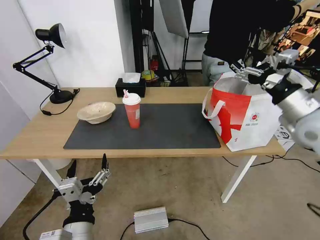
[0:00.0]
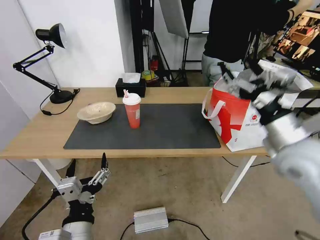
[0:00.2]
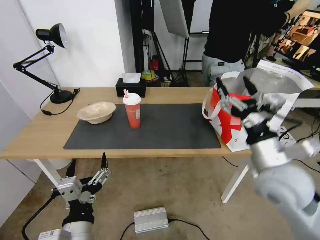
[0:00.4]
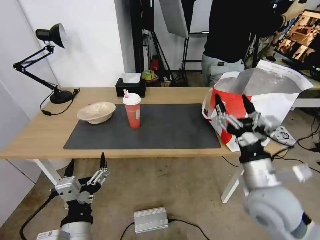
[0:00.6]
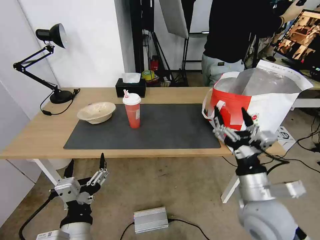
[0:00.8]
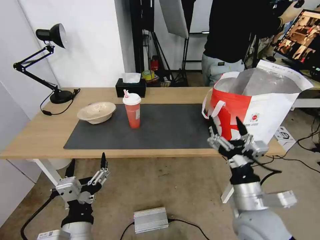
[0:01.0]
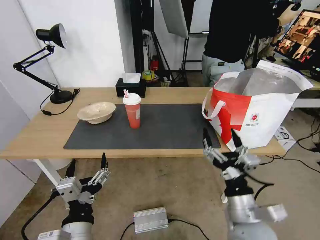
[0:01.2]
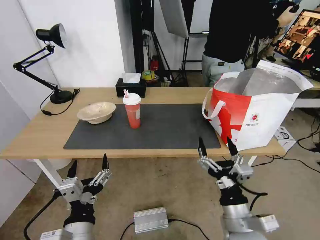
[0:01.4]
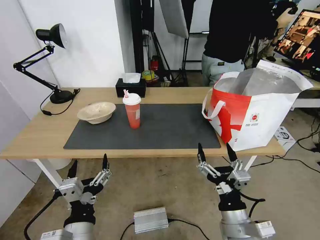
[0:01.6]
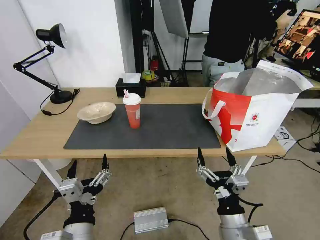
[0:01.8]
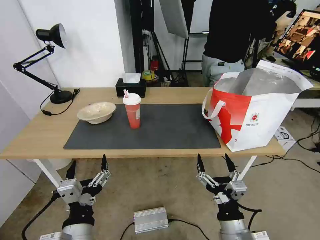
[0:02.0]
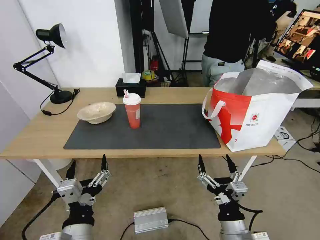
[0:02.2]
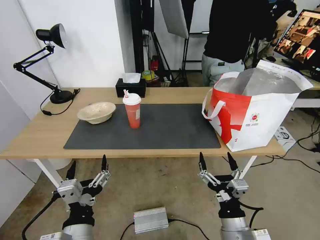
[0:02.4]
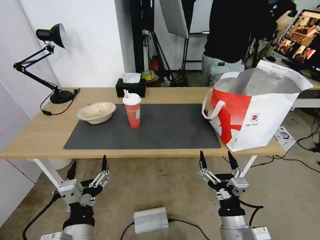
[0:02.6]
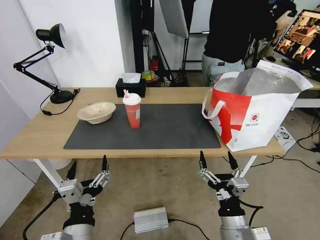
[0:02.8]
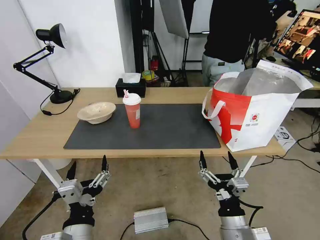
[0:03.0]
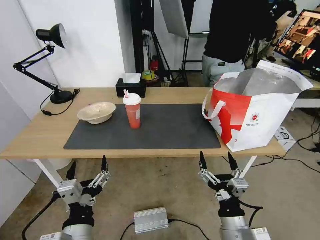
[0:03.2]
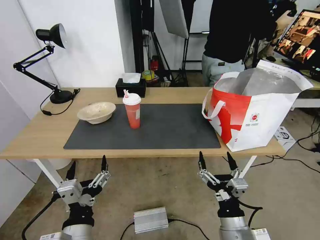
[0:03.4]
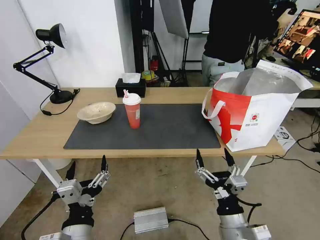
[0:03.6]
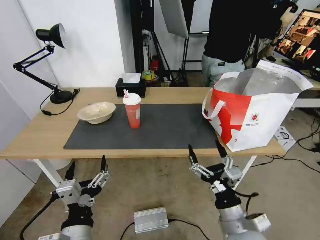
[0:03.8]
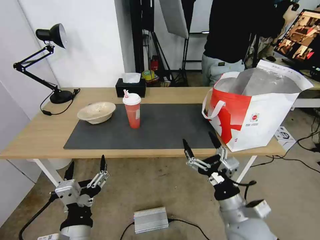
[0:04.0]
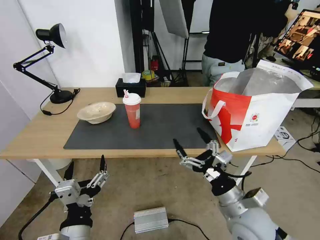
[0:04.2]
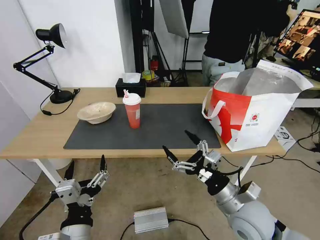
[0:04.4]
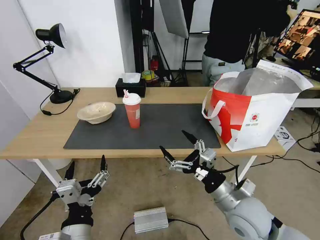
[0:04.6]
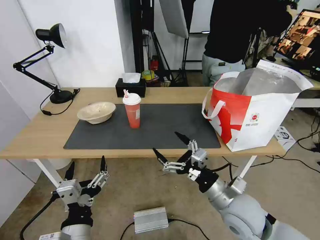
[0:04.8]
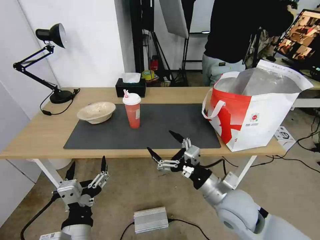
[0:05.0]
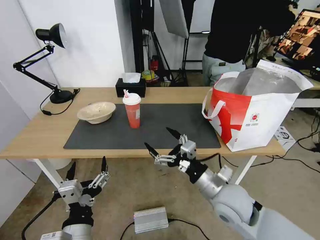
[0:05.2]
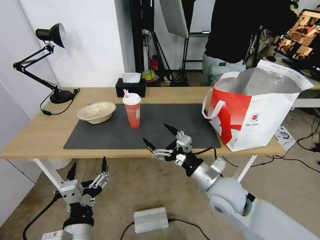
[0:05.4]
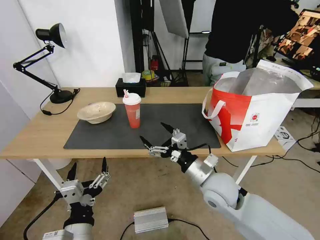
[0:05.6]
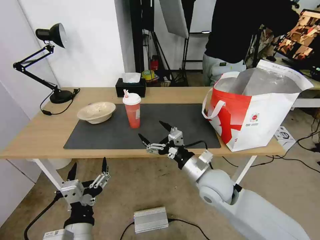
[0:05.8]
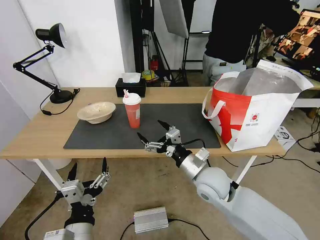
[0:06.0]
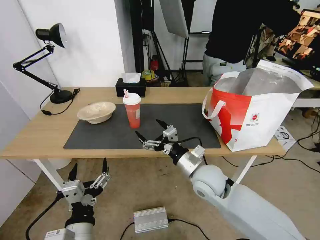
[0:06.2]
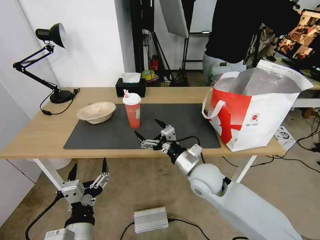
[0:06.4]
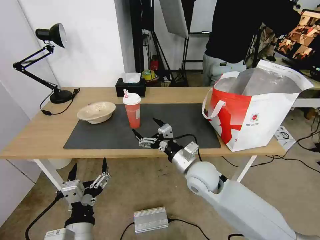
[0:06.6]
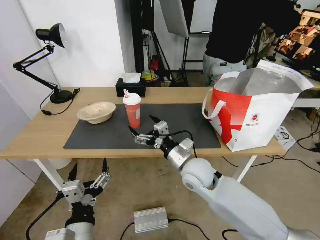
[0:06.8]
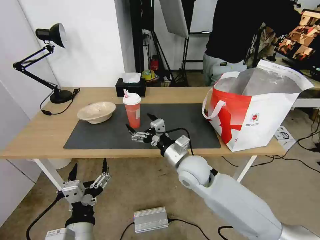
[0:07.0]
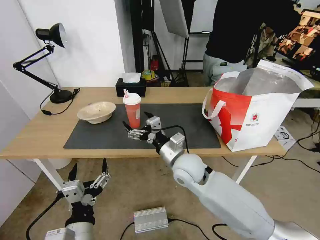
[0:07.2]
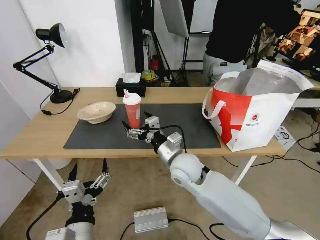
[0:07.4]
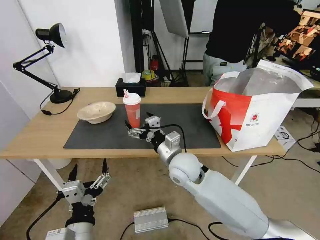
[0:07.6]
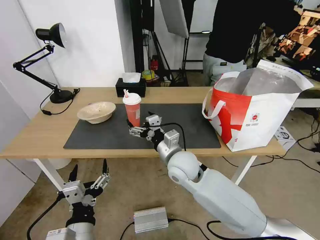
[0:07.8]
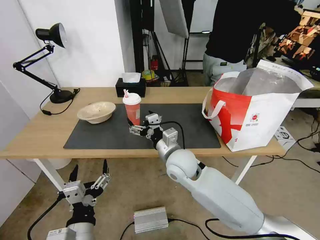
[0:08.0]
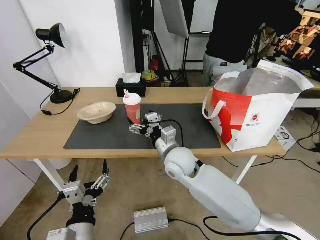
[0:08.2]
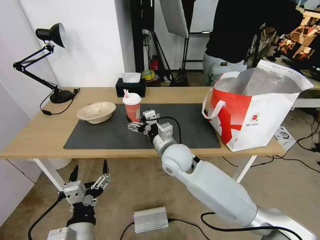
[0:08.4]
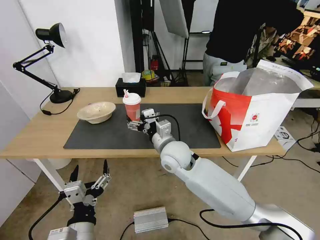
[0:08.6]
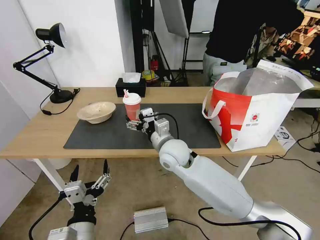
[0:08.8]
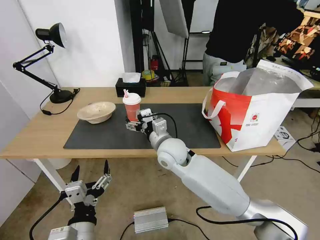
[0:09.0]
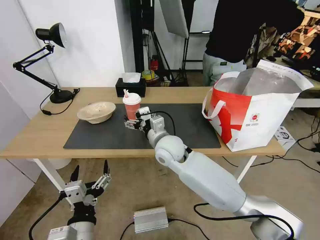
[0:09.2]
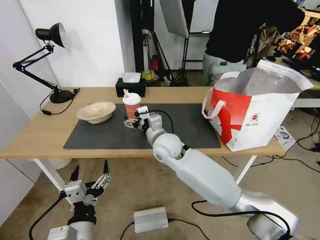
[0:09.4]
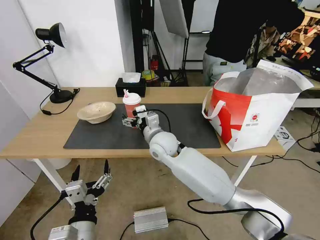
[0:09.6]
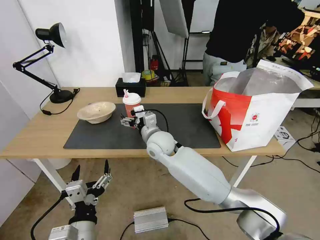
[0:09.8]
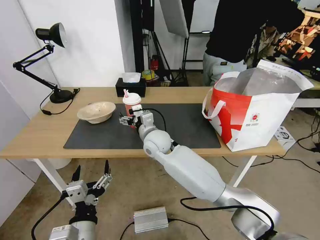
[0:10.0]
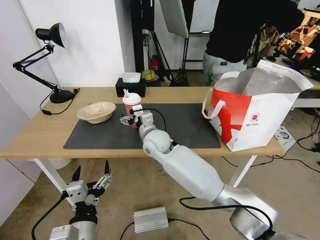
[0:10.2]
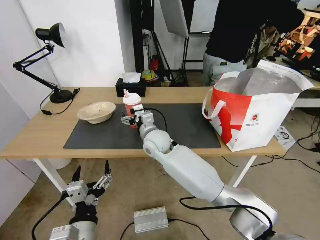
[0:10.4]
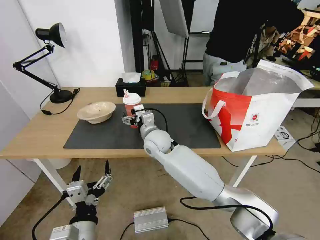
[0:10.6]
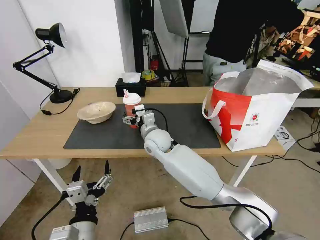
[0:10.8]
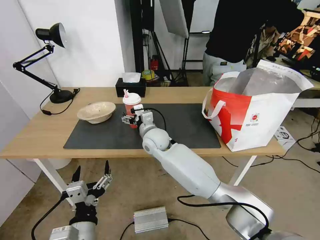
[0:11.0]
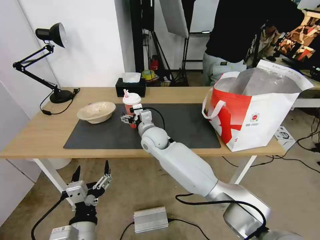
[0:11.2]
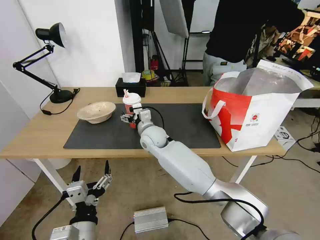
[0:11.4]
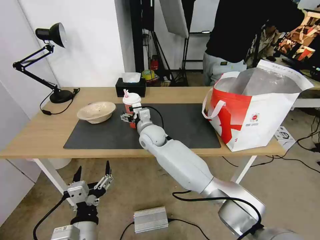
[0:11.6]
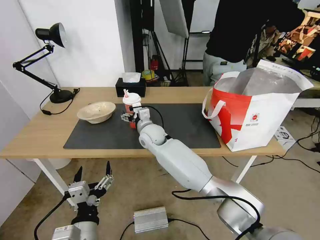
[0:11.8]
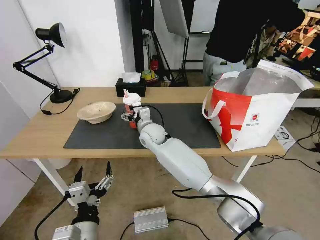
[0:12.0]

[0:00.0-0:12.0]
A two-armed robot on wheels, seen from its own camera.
Task of the whole recording: Pick up the trash from the table and place it into the takeout bag.
0:00.0 to 0:01.6: The right gripper is displaced backward, downward and to the left by roughly 35 cm.
0:01.6 to 0:03.0: The grippers stay close to where they were, moving slightly.
0:03.0 to 0:04.4: The right gripper goes some 10 cm forward and upward.
0:04.4 to 0:06.0: The right gripper is displaced forward and to the left by roughly 10 cm.
0:06.0 to 0:07.6: The right gripper is displaced to the left by about 10 cm.
0:07.6 to 0:09.0: The right gripper ends up some 5 cm from where it was.
0:09.0 to 0:10.4: The right gripper shifts some 5 cm forward.
0:10.4 to 0:12.0: The right gripper changes place by roughly 5 cm.

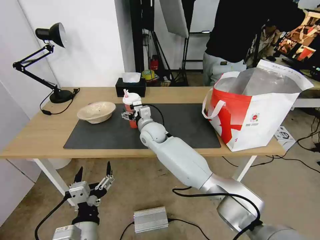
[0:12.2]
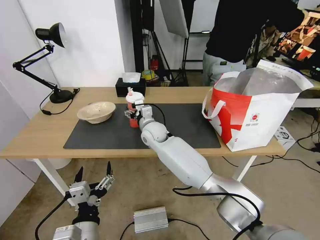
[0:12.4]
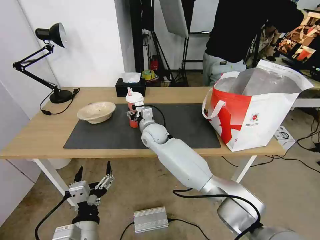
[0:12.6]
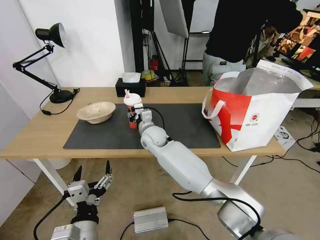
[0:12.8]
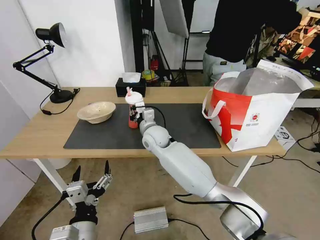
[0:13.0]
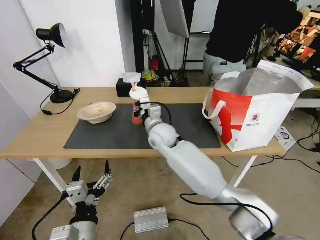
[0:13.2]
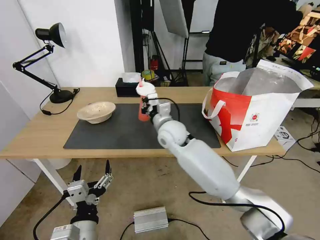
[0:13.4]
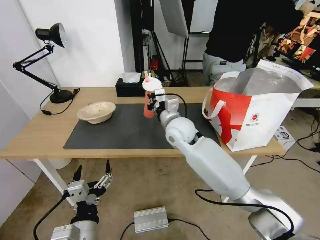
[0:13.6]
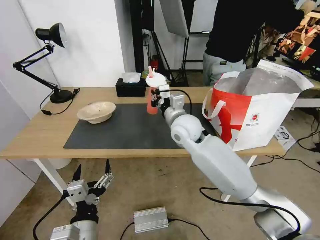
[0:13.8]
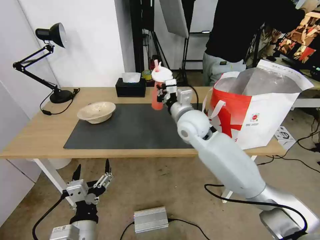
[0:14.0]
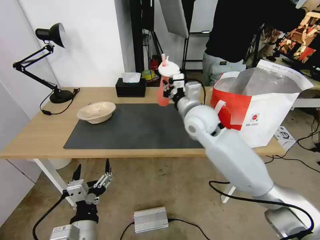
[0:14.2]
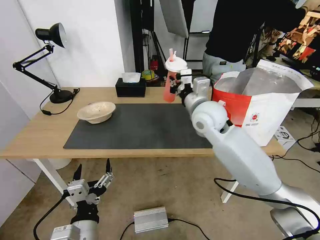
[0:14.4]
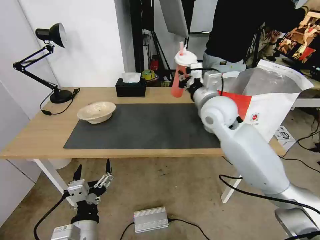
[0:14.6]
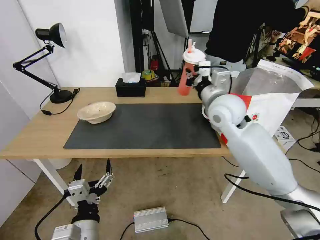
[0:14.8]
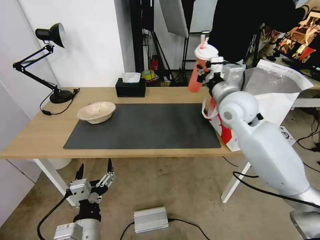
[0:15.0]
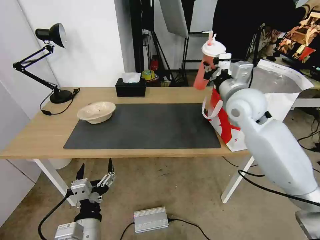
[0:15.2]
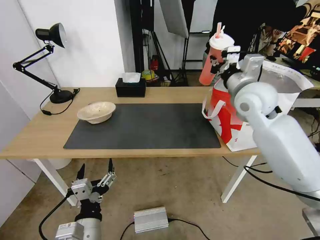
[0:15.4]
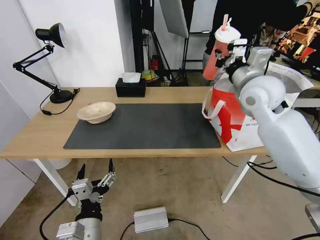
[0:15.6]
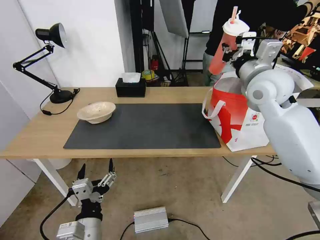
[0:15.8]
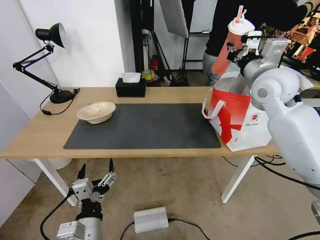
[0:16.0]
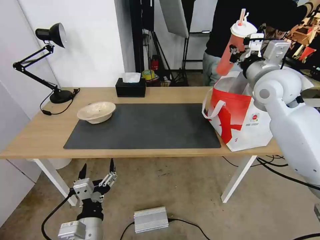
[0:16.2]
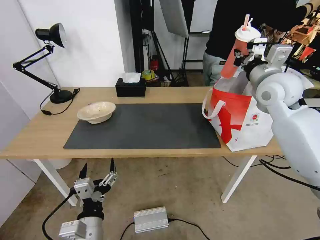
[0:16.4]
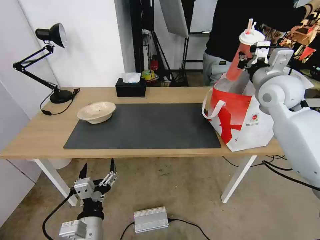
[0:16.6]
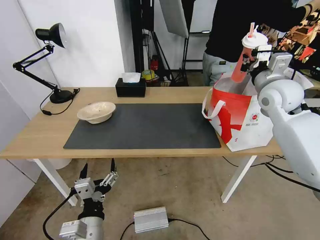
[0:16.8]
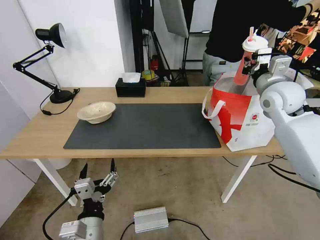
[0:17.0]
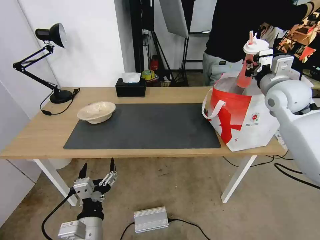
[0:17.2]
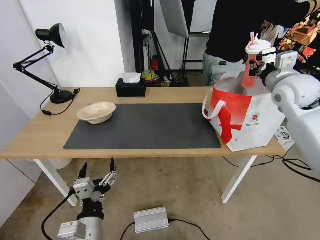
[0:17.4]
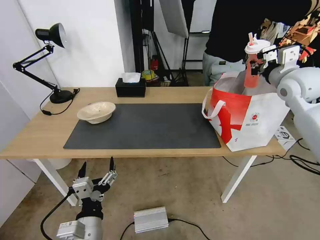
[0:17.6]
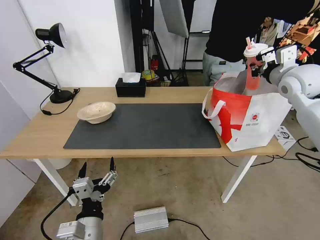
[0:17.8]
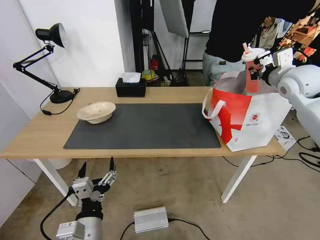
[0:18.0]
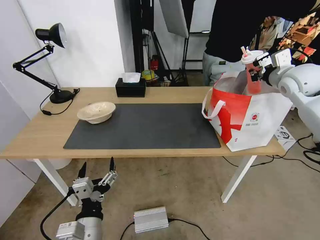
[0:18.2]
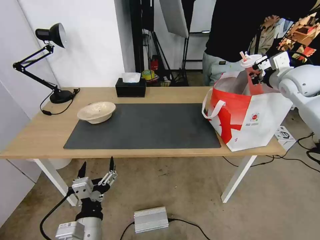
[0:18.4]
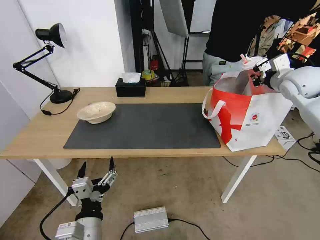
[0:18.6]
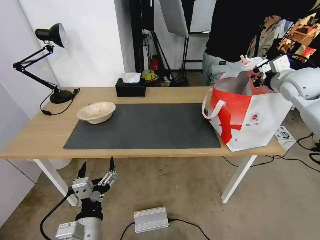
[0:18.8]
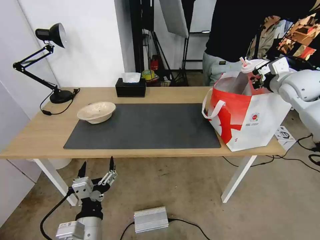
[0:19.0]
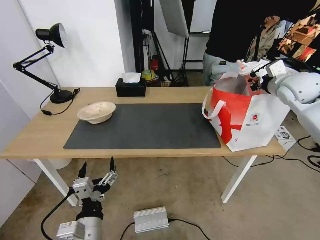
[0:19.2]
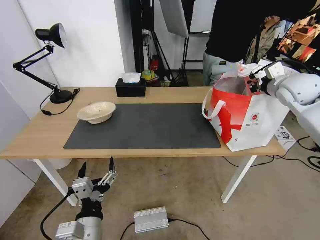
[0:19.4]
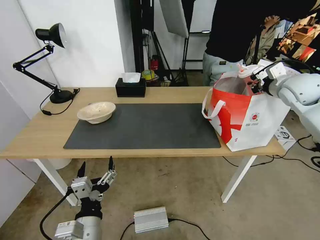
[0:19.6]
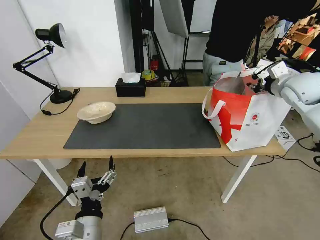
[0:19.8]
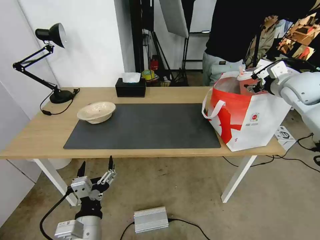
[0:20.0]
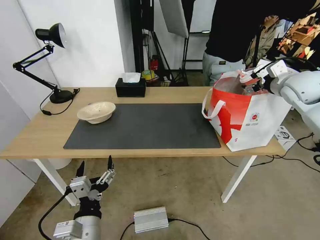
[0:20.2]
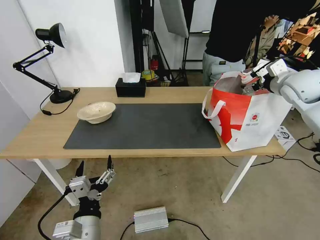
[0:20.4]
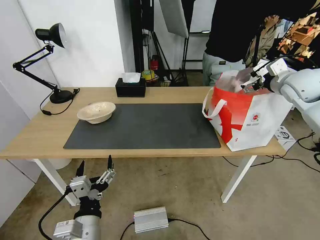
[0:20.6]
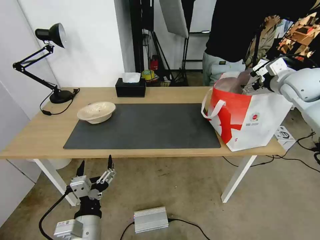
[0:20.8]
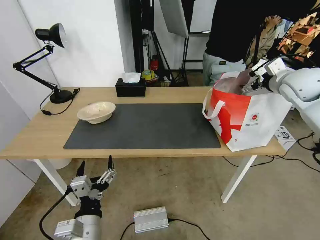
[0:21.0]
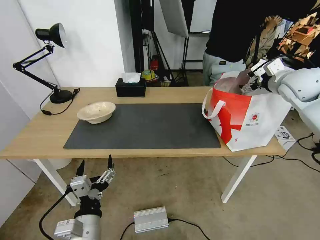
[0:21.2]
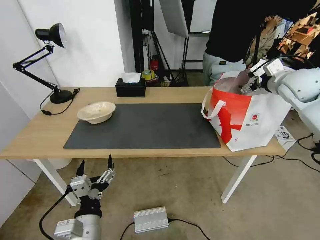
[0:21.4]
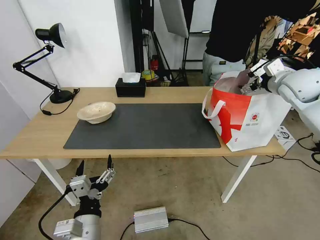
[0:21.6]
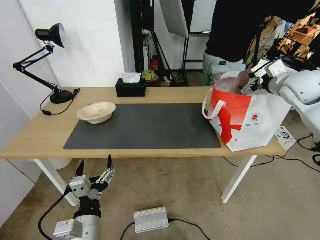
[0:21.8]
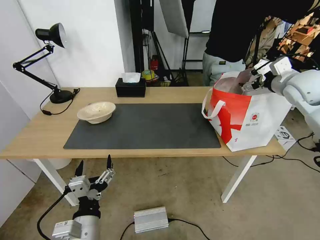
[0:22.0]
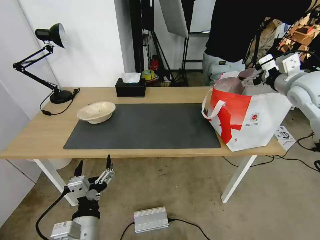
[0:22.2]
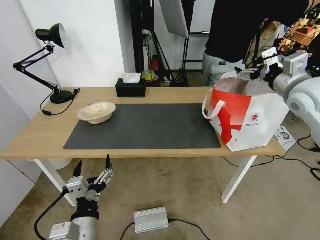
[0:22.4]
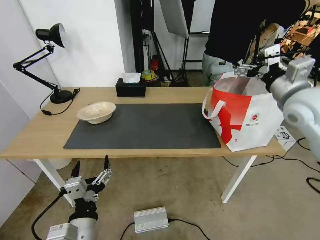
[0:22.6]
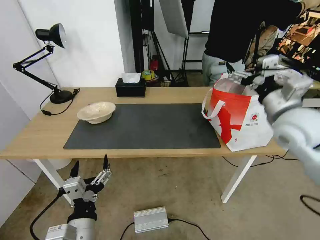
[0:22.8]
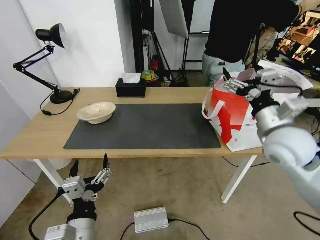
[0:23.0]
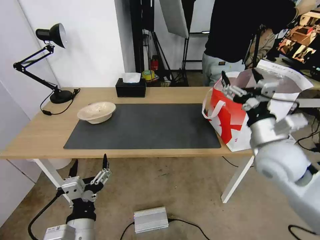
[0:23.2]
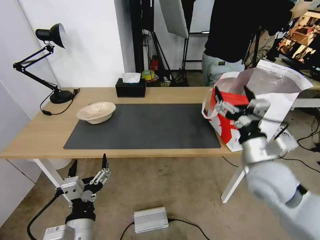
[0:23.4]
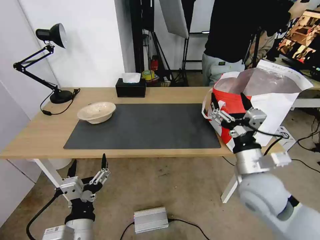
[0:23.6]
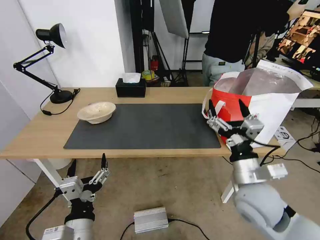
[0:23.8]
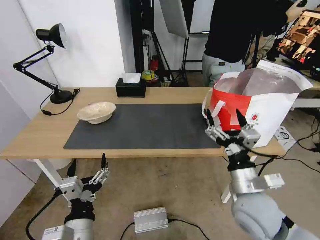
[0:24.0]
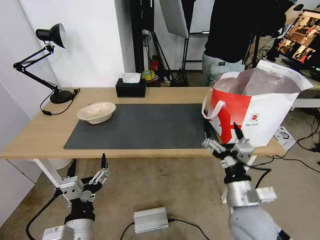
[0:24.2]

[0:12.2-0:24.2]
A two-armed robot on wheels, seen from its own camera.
Task of the whole recording: Pick up the trash from the table and place it into the takeout bag.
0:12.2 to 0:13.8: The right gripper moves to the right, upward and backward, approximately 15 cm, and closes up.
0:13.8 to 0:15.2: The right gripper is displaced to the right and upward by some 20 cm.
0:15.2 to 0:16.6: The right gripper goes some 10 cm to the right.
0:16.6 to 0:18.2: The right gripper shifts roughly 10 cm to the right.
0:18.2 to 0:19.8: The right gripper opens.
0:19.8 to 0:21.2: The right gripper opens its fingers.
0:21.2 to 0:22.6: The right gripper heads backward and to the left, covering some 10 cm.
0:22.6 to 0:24.2: The right gripper heads downward, backward and to the left, covering some 30 cm.
